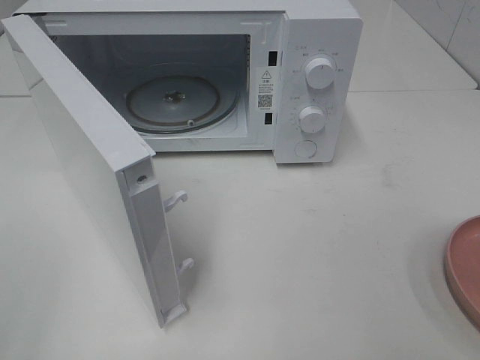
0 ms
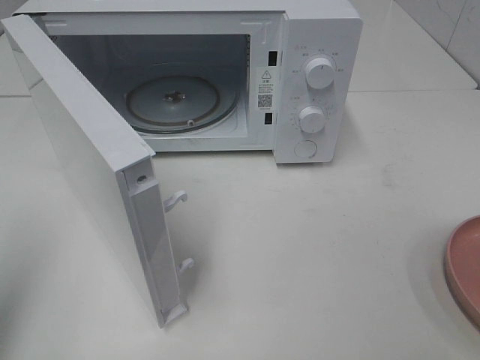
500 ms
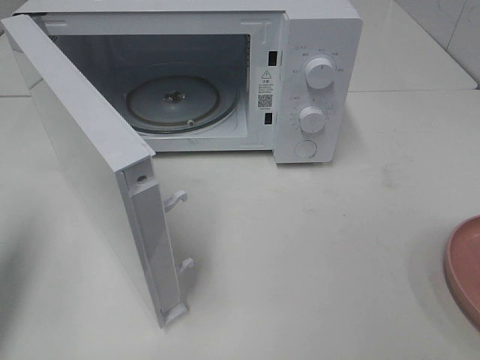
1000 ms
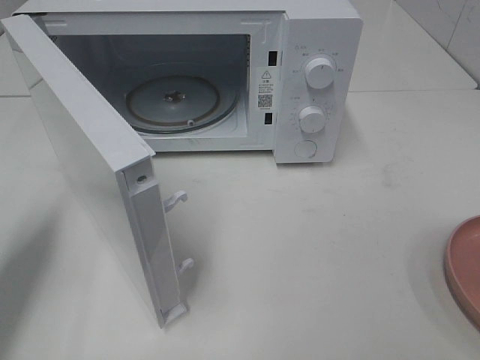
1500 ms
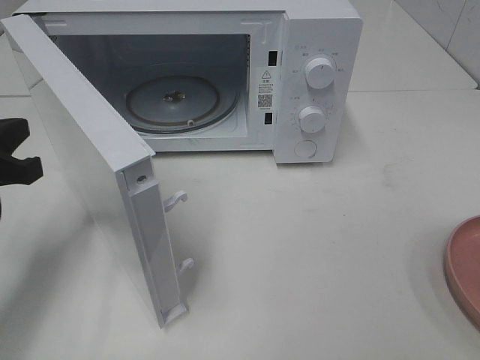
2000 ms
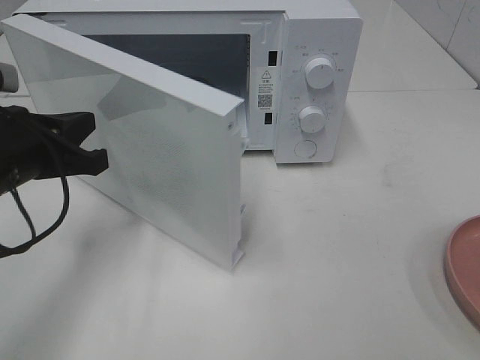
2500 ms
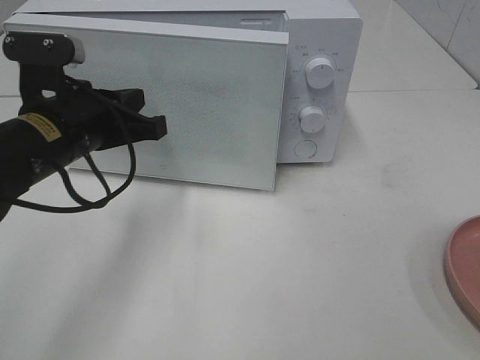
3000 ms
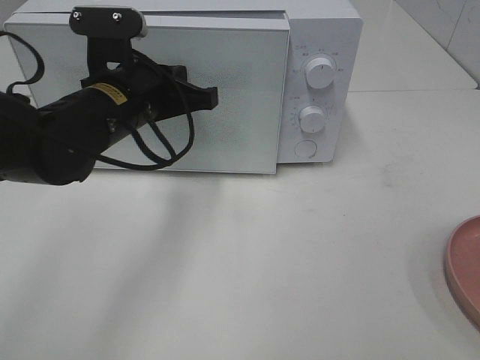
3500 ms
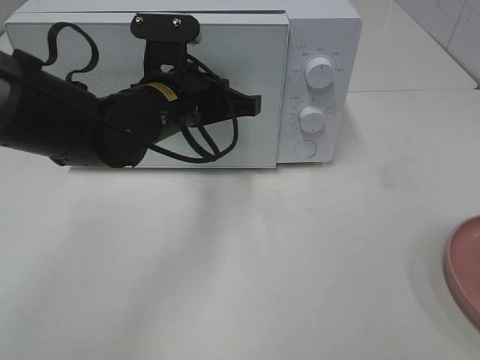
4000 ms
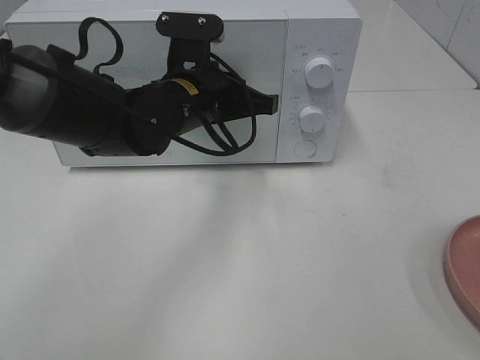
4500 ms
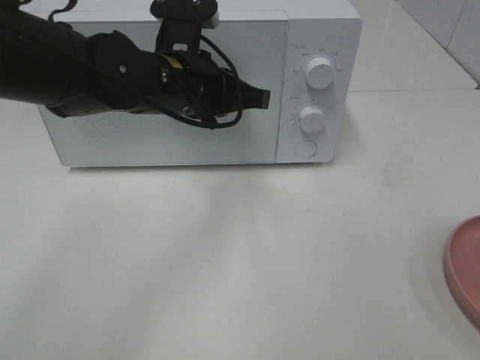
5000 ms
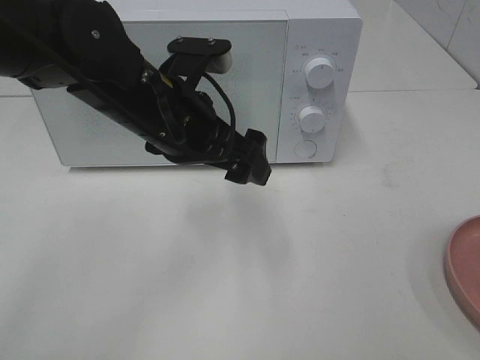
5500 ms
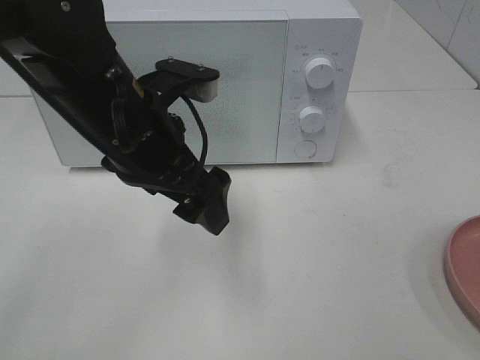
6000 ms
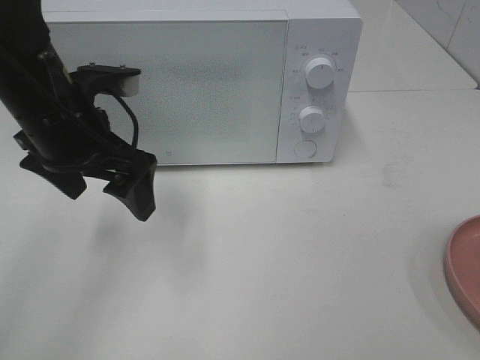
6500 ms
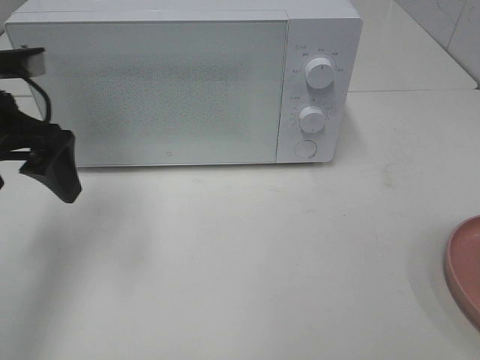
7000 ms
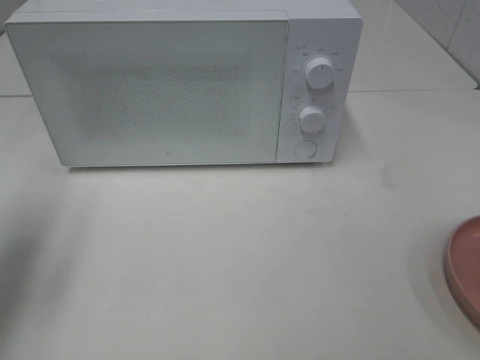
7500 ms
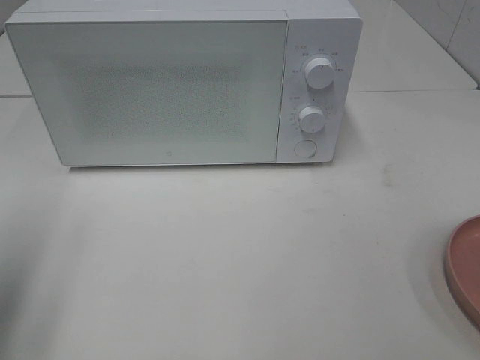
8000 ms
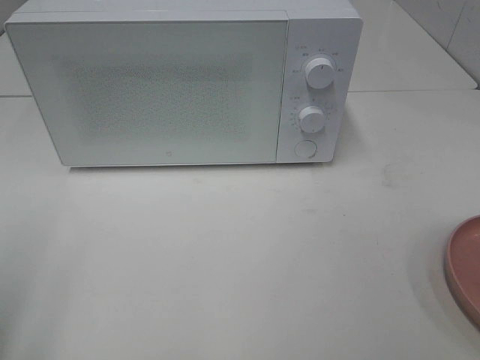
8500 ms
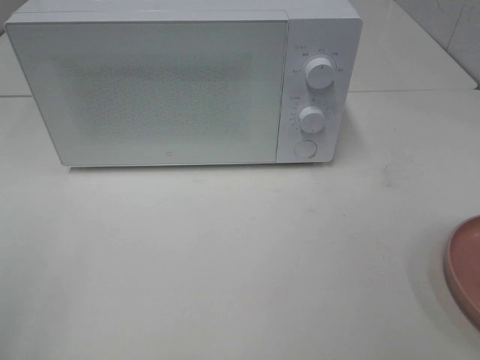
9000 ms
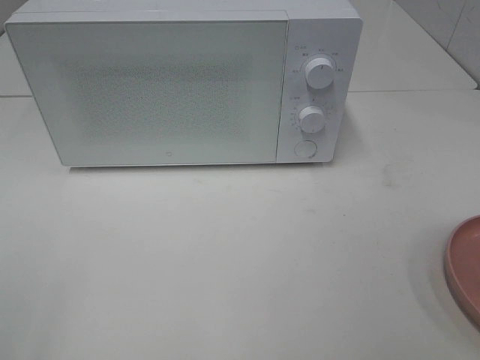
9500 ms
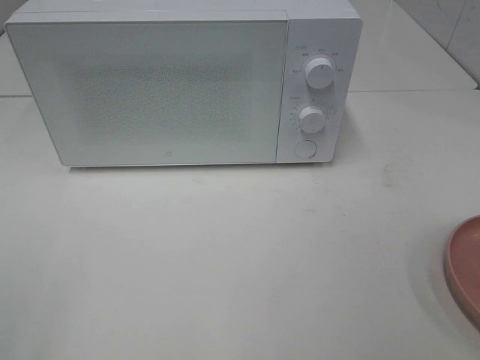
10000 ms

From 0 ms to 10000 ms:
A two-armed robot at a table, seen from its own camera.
Task of the whole recording: Heat the burger.
Step, from 0 ms to 4500 ms: Left hand: close the microwave door.
From 0 ms to 2000 ms: The left gripper shifts approximately 25 cm forward and downward, and closes up.
From 2000 ms to 4000 ms: The left gripper is displaced to the right and forward by approximately 25 cm.
From 4000 ms to 6000 ms: The left gripper moves backward, some 5 cm, and opens up.
From 6000 ms to 8000 ms: The left gripper shifts about 25 cm to the left and backward.
From 8000 ms to 10000 ms: The left gripper is displaced backward by roughly 15 cm.

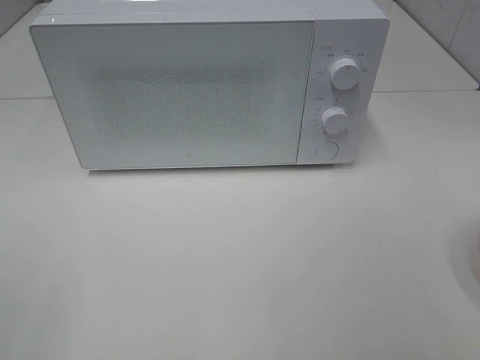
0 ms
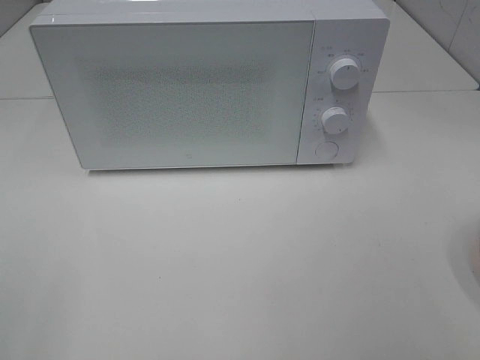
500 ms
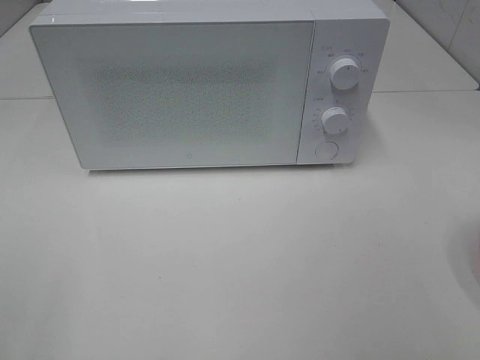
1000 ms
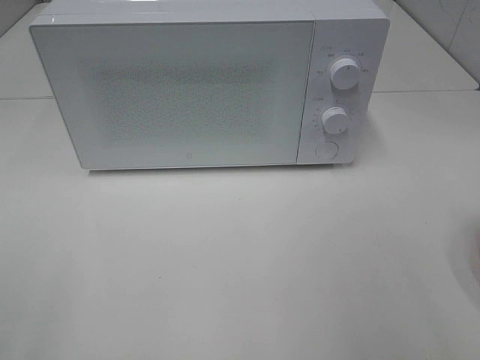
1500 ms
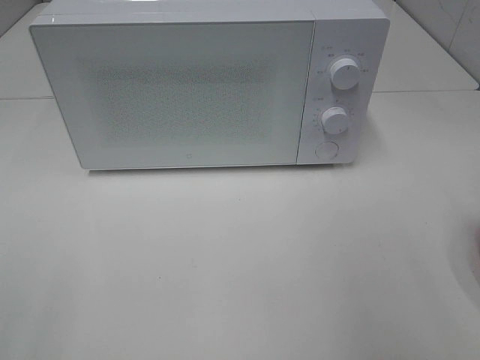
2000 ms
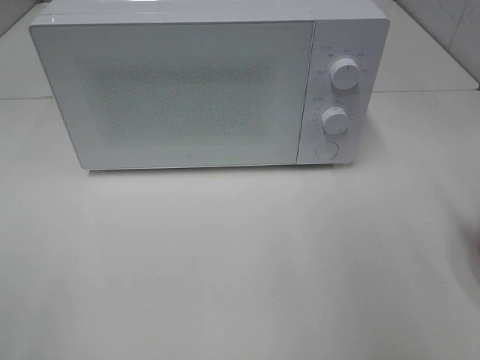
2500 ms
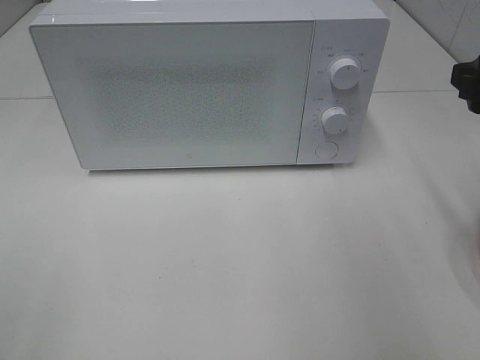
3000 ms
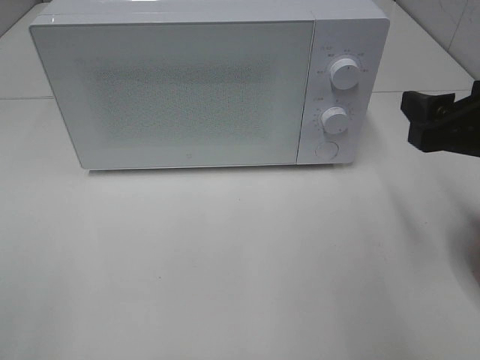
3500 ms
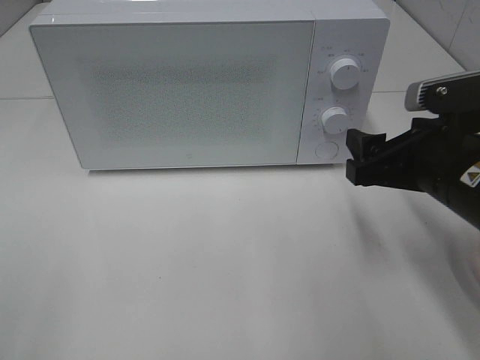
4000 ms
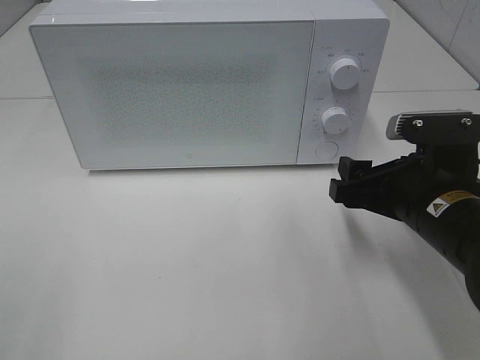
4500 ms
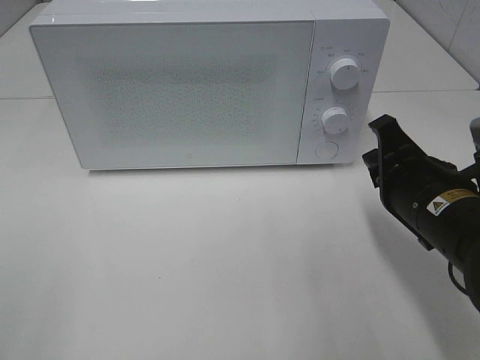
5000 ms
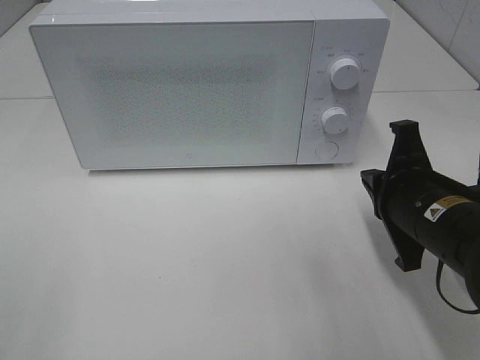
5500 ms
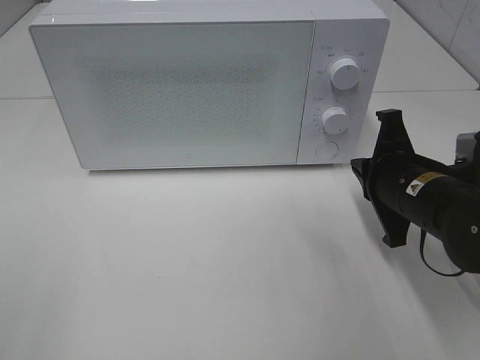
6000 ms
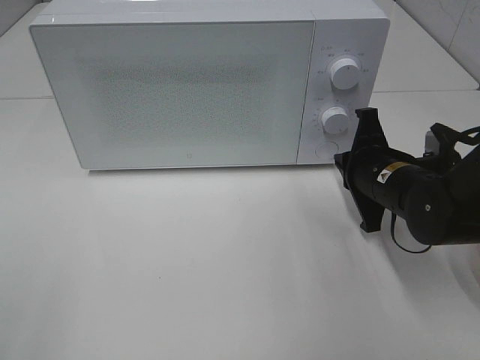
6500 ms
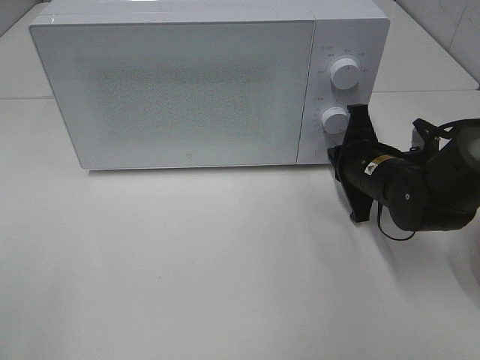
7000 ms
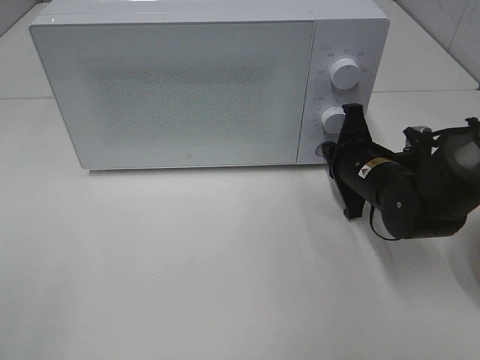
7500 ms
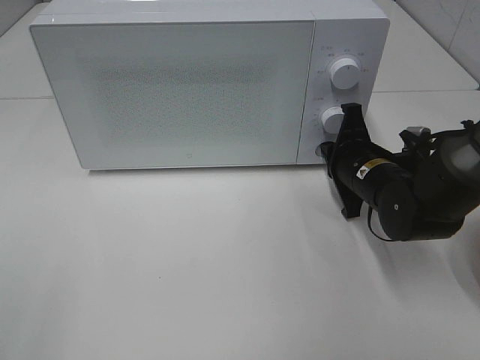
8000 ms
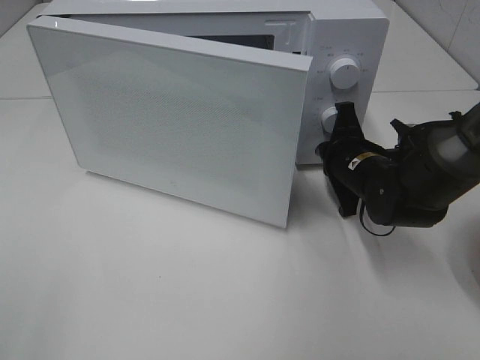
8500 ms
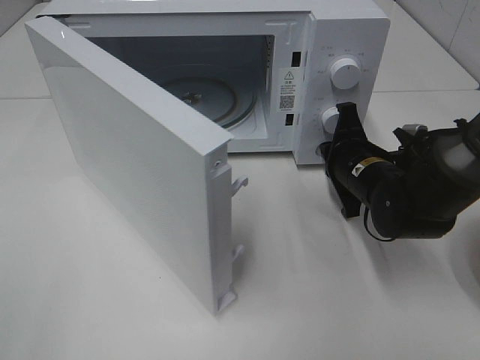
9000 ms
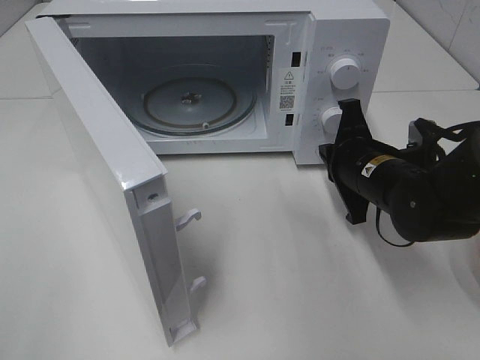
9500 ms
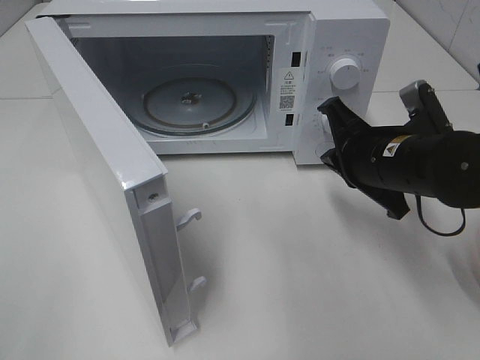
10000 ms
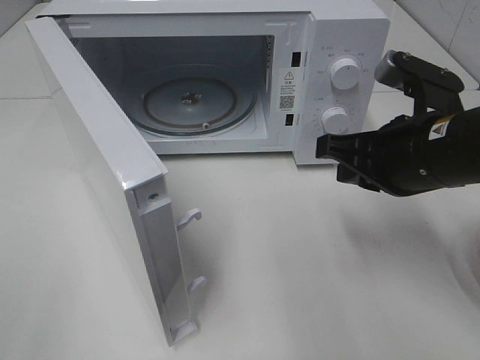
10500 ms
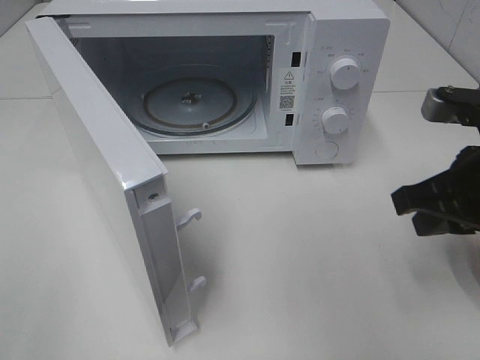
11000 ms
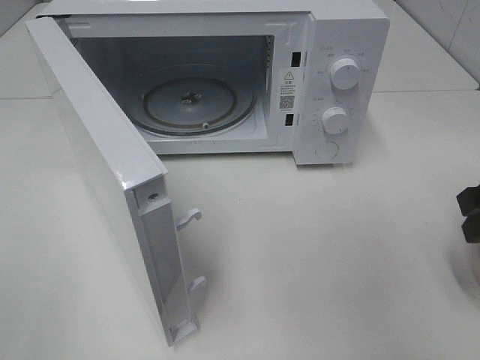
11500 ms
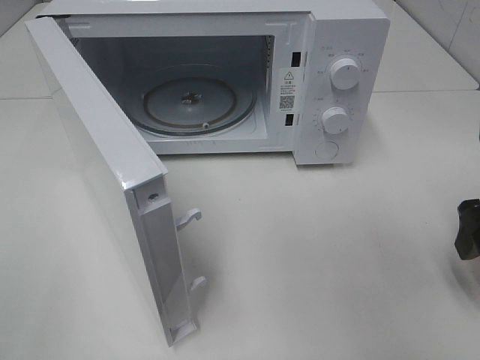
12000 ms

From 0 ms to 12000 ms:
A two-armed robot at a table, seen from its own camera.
Task of the whole recording: Heat the burger.
Step, from 0 ms to 9000 ms: Right hand: press the switch.
From 2000 ms to 4000 ms: The right gripper goes some 20 cm downward, to the left and forward.
From 4000 ms to 6000 ms: The right gripper travels downward by roughly 5 cm, and closes its fingers.
From 6000 ms to 8000 ms: The right gripper shifts about 10 cm forward.
From 8000 ms to 10000 ms: The right gripper goes some 10 cm upward and backward.
From 10000 ms to 12000 ms: The right gripper is displaced to the right and backward by about 15 cm, and opens up.

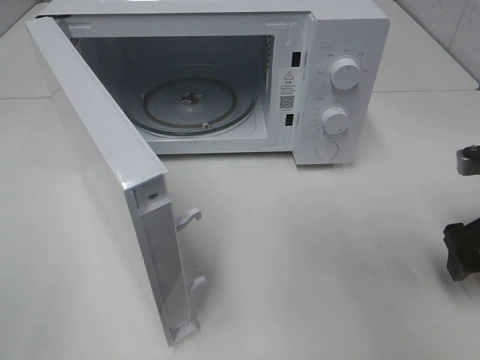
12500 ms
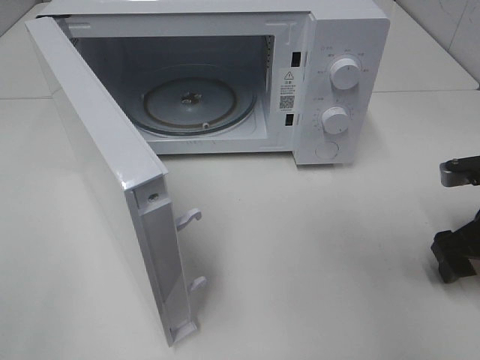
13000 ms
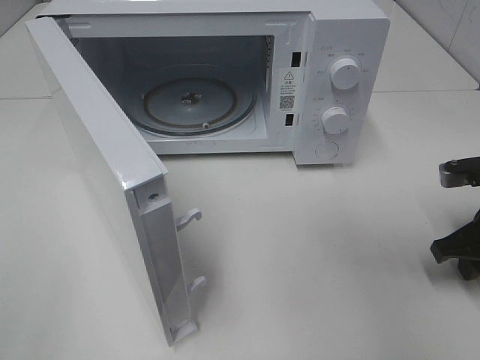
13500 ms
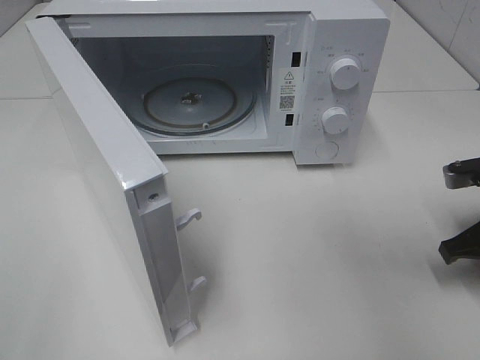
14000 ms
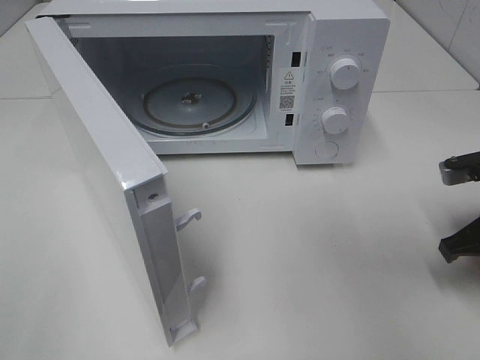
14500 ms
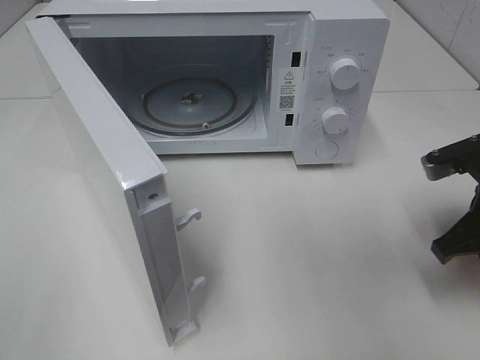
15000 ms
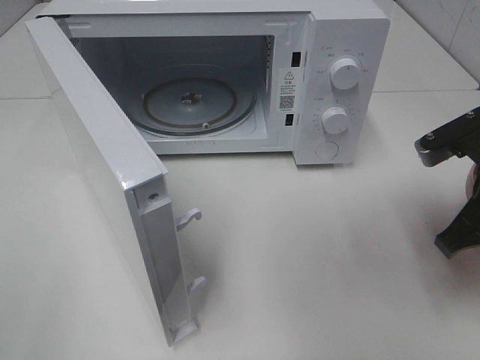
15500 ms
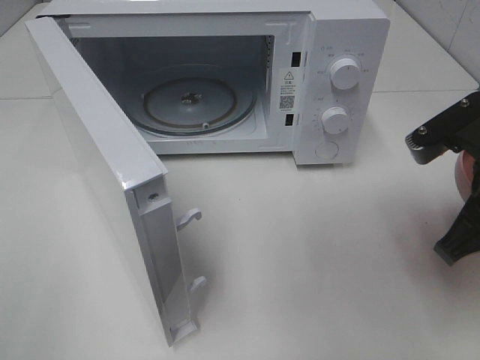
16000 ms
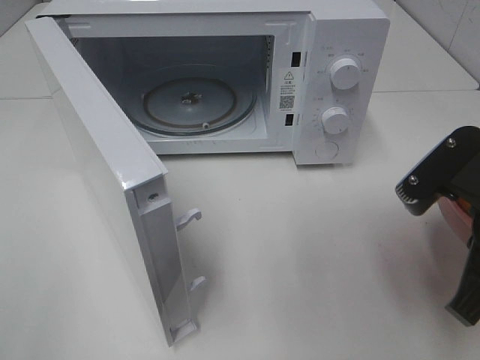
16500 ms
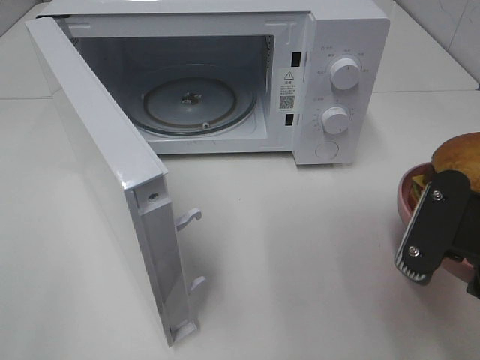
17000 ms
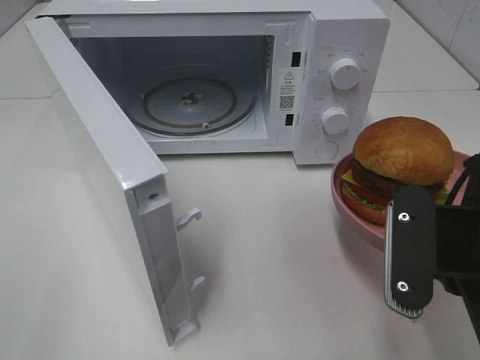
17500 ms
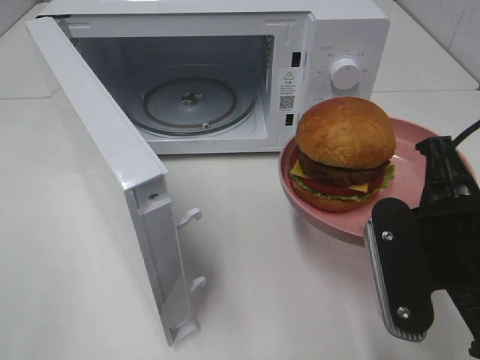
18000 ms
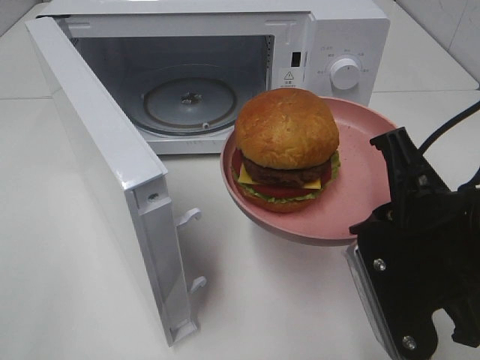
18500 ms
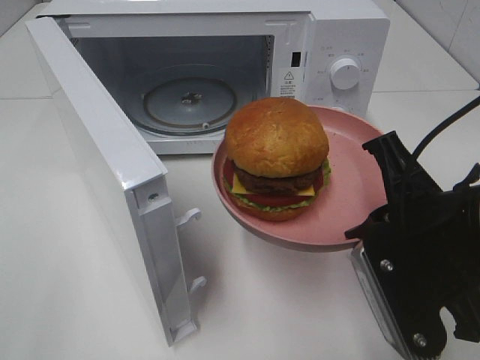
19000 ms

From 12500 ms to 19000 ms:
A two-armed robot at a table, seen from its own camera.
Task of the whole recording: Heat the burger.
From 12500 ms to 14500 ms: The right gripper closes up.
From 14500 ms to 17000 ms: The right gripper heads backward, to the left and upward, covering approximately 15 cm.
